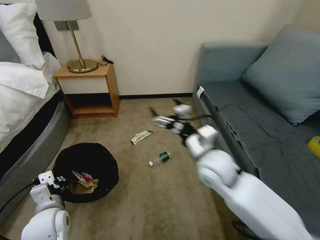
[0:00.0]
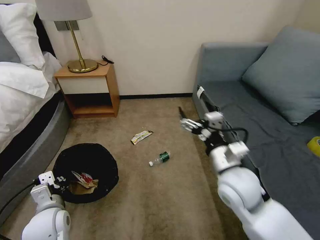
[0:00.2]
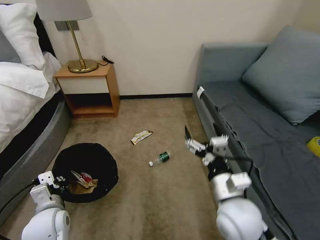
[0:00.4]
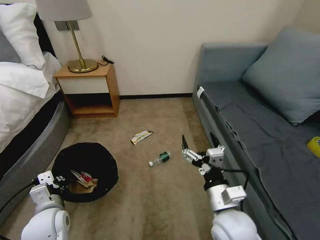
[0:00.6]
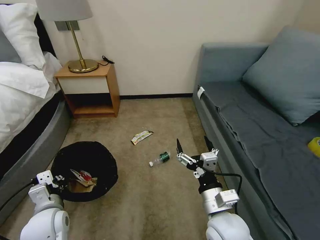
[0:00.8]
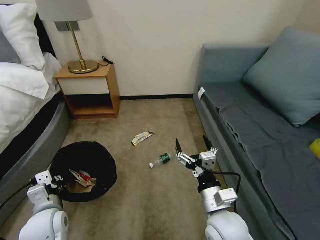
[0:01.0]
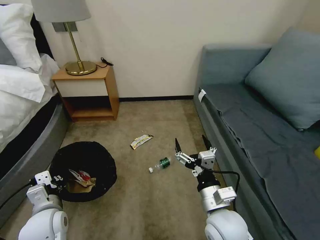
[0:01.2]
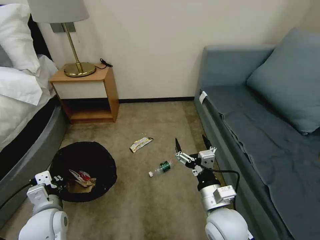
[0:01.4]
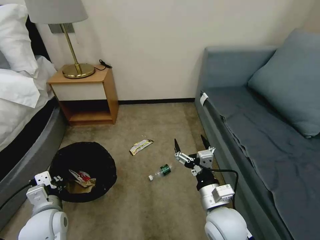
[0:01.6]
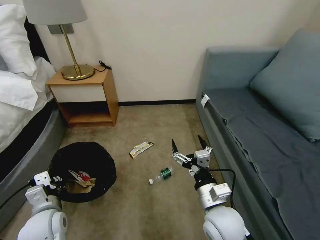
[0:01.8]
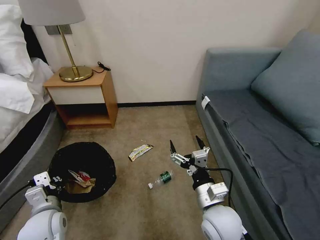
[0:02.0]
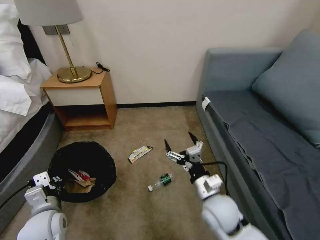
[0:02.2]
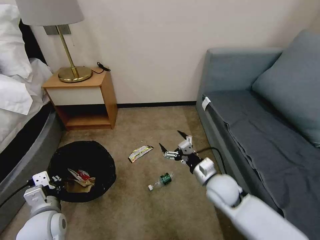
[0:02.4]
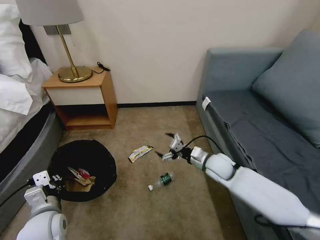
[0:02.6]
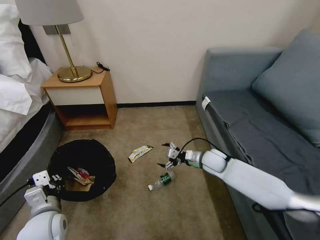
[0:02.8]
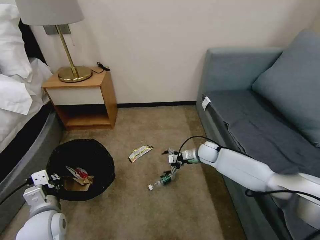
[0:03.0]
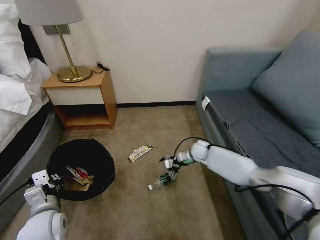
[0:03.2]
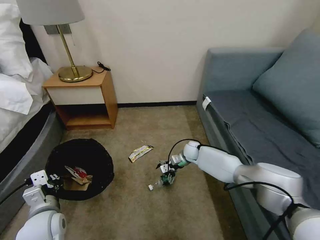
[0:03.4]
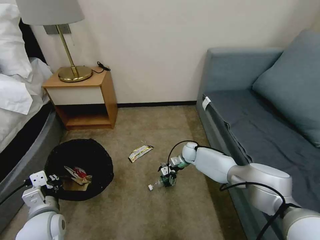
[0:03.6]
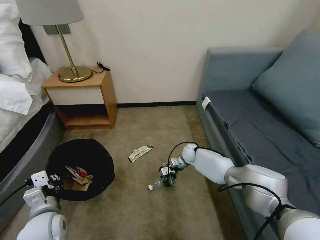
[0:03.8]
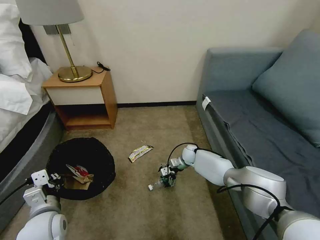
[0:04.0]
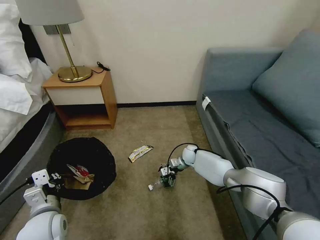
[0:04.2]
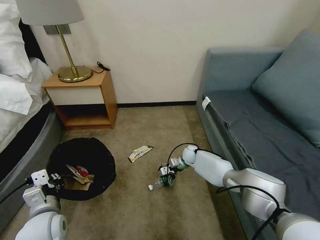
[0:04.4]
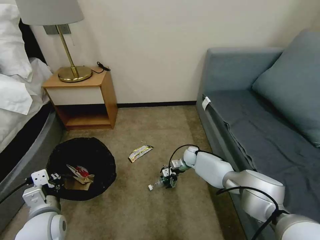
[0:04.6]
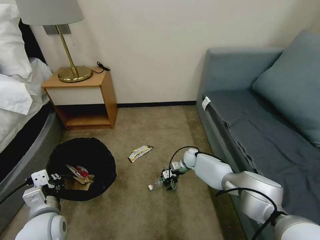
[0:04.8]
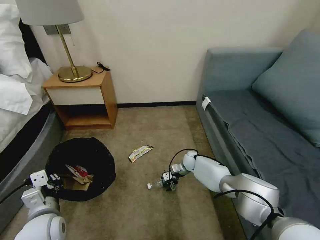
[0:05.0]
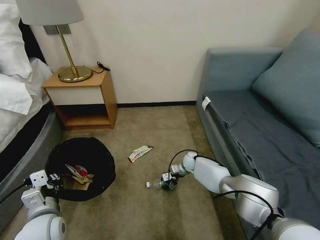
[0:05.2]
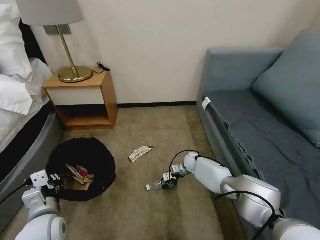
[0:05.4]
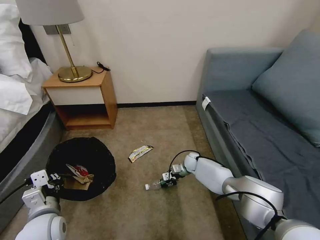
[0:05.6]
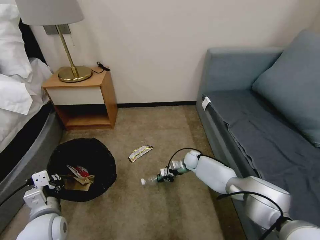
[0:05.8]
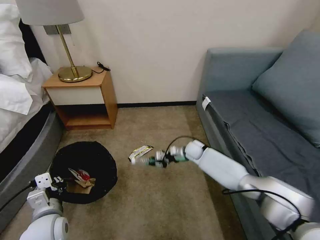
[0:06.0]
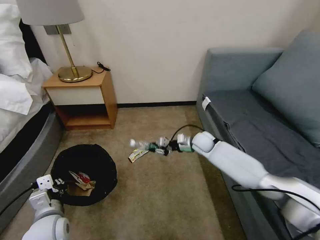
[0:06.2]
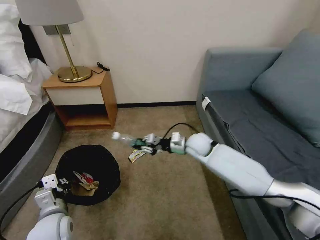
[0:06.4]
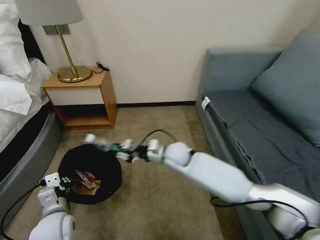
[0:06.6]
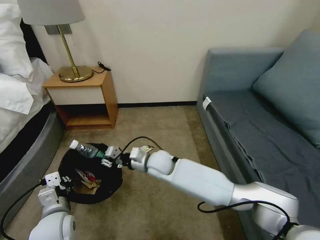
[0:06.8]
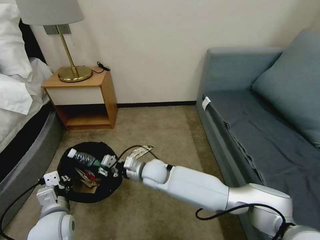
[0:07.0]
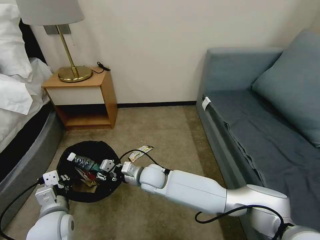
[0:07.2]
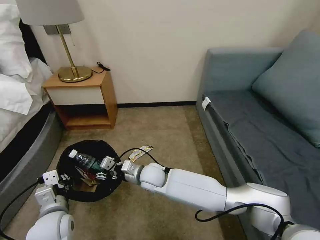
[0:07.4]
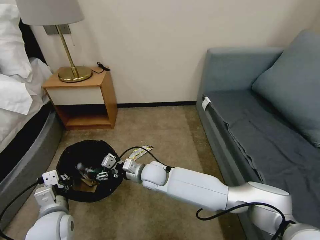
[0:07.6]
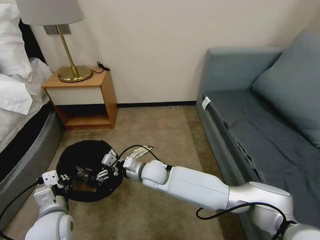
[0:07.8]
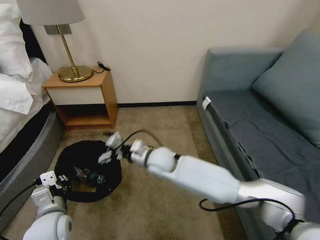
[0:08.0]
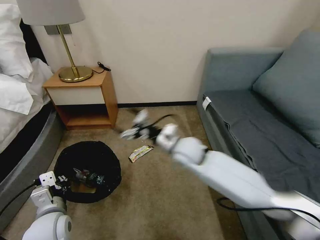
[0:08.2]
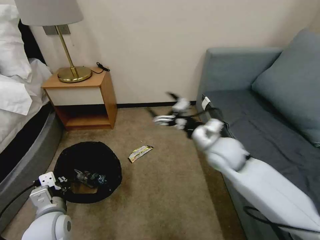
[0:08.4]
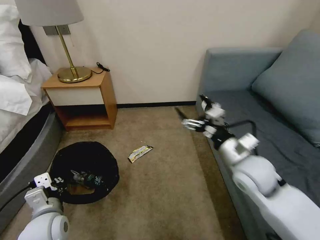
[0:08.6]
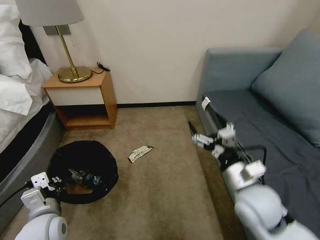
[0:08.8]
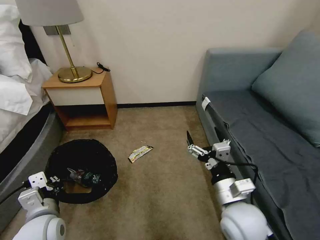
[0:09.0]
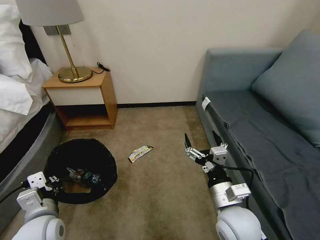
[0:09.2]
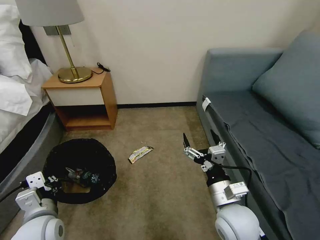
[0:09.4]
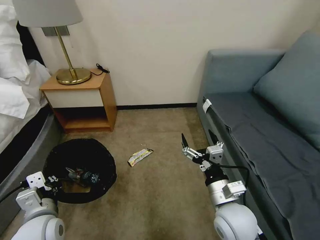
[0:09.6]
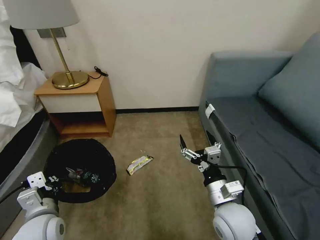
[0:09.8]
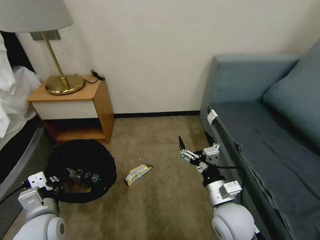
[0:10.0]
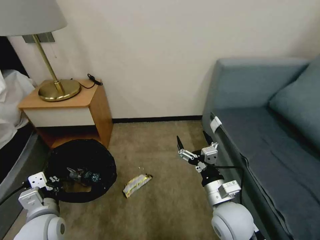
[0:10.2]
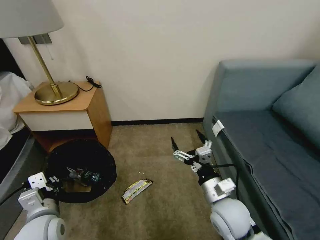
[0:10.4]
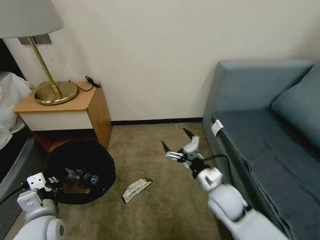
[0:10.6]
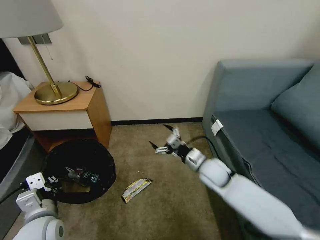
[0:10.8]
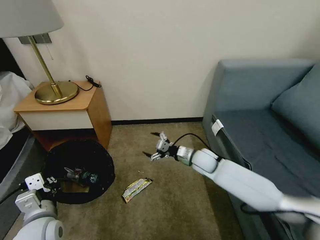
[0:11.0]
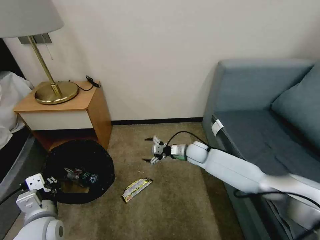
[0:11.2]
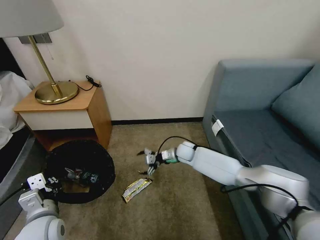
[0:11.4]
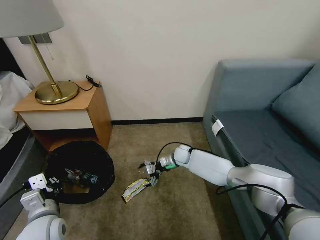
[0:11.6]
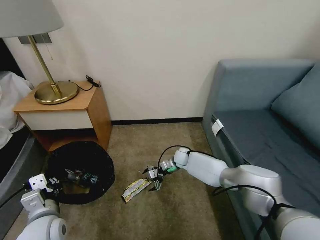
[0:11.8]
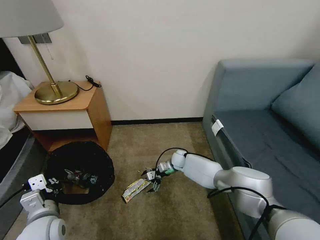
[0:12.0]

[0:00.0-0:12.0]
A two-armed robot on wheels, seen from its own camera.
Task of the whole recording: Pick up the trash bin, then pick up the garbage on the floor and place it into the trash bin.
0:00.0 to 0:01.6: The right gripper is displaced backward and downward by approximately 15 cm.
0:01.6 to 0:03.0: The right gripper heads forward, covering some 30 cm.
0:03.0 to 0:04.4: The right gripper travels downward and to the left by roughly 10 cm.
0:04.4 to 0:06.0: The right gripper goes some 5 cm upward, and closes its fingers.
0:06.0 to 0:07.6: The right gripper travels to the left and backward by about 25 cm, and opens.
0:07.6 to 0:09.0: The right gripper goes roughly 30 cm to the right, backward and upward.
0:10.4 to 0:12.0: The right gripper is displaced forward and downward by some 35 cm.

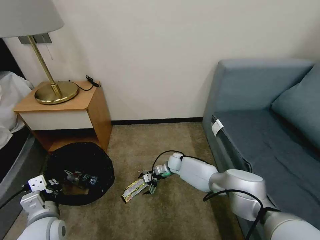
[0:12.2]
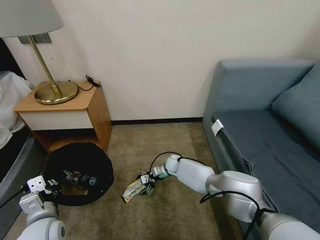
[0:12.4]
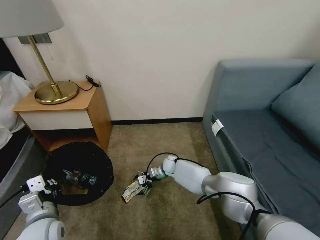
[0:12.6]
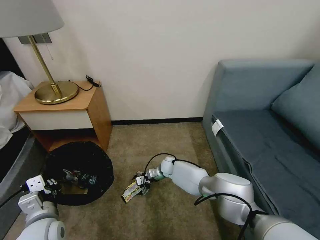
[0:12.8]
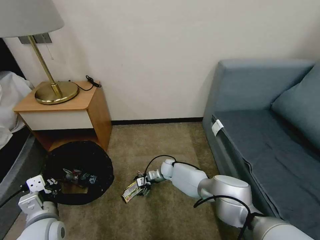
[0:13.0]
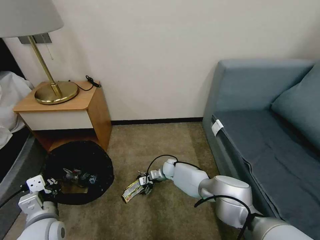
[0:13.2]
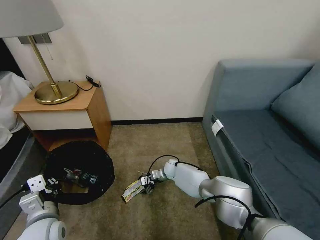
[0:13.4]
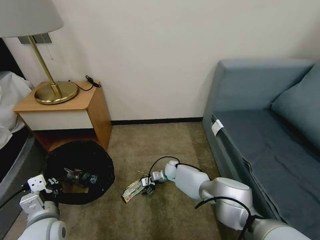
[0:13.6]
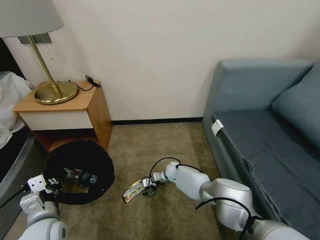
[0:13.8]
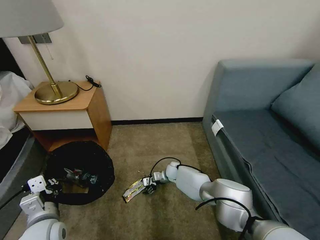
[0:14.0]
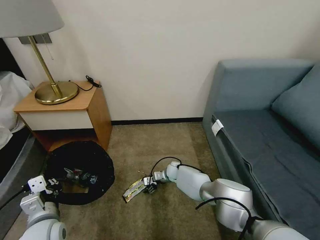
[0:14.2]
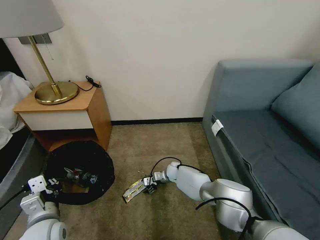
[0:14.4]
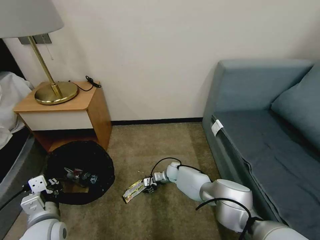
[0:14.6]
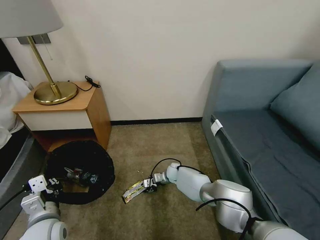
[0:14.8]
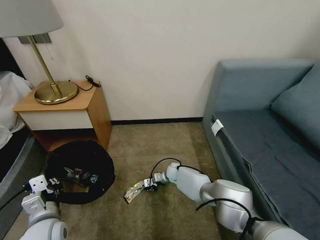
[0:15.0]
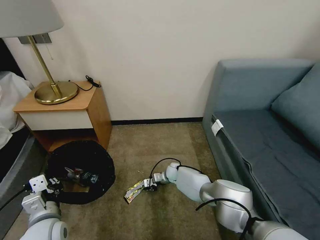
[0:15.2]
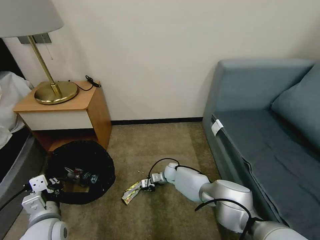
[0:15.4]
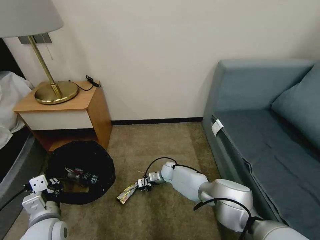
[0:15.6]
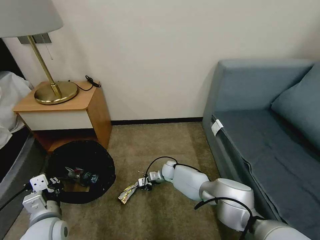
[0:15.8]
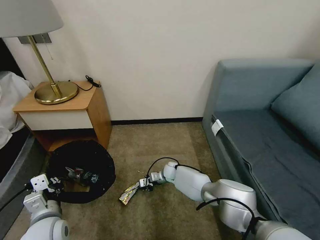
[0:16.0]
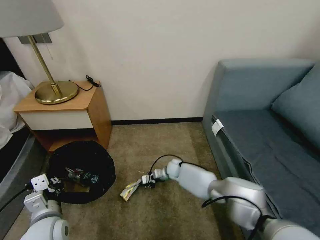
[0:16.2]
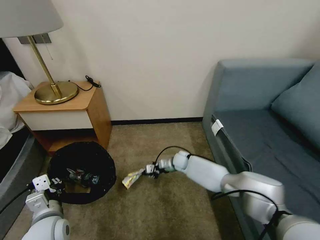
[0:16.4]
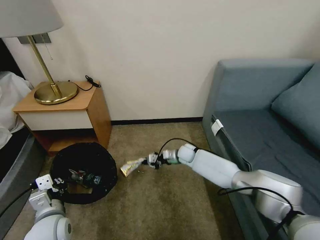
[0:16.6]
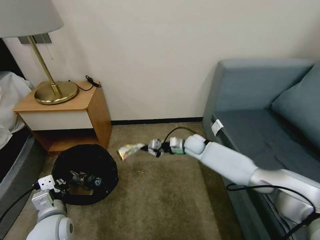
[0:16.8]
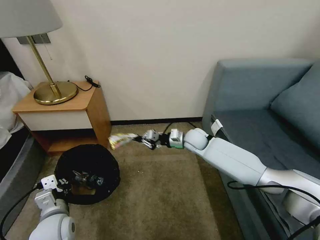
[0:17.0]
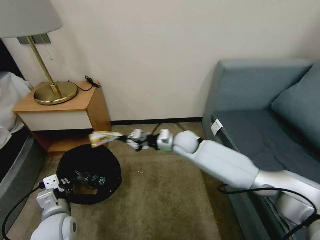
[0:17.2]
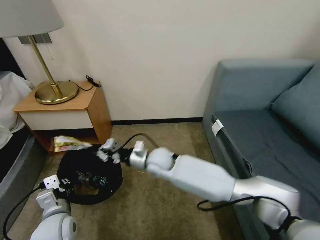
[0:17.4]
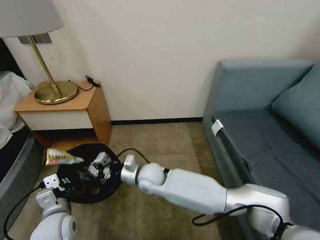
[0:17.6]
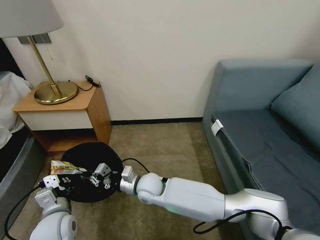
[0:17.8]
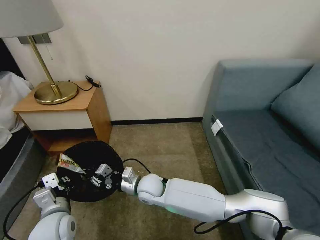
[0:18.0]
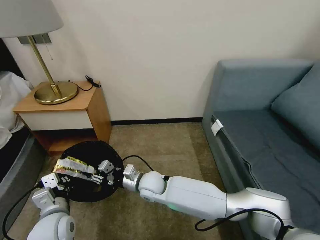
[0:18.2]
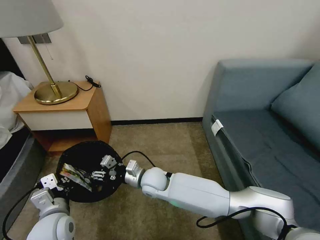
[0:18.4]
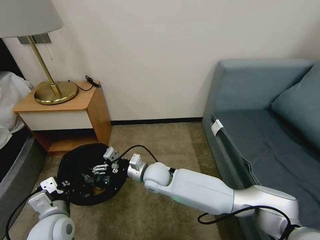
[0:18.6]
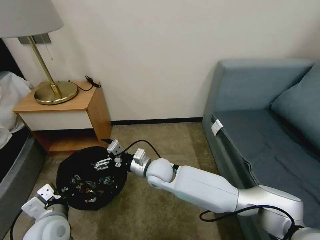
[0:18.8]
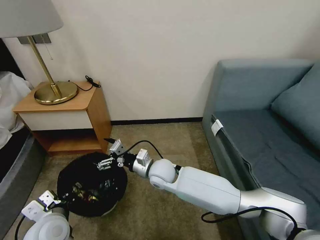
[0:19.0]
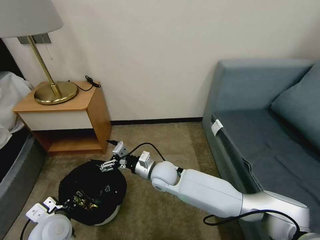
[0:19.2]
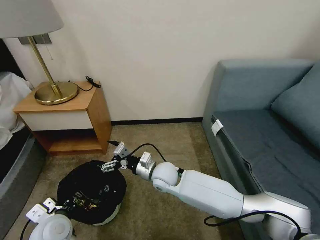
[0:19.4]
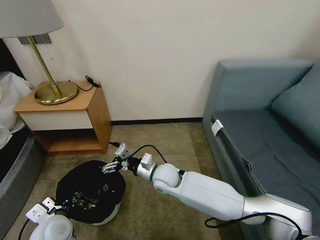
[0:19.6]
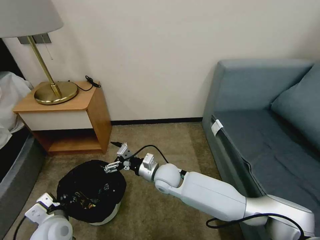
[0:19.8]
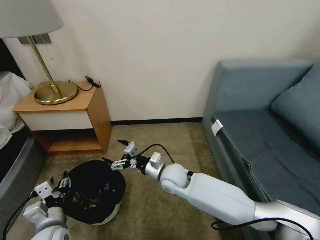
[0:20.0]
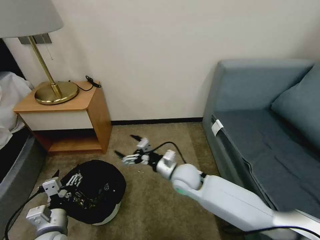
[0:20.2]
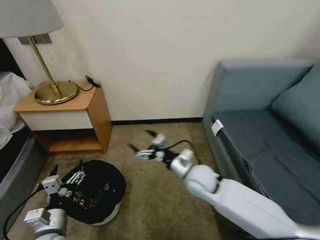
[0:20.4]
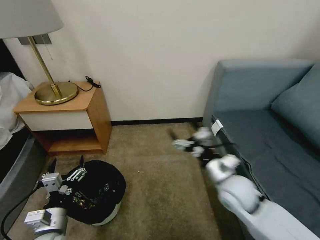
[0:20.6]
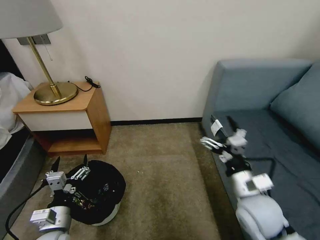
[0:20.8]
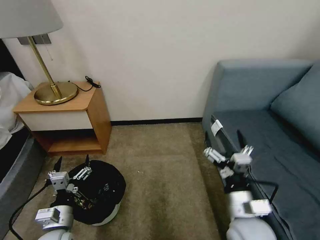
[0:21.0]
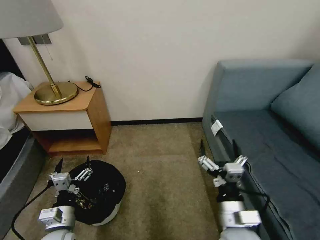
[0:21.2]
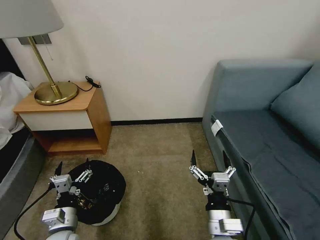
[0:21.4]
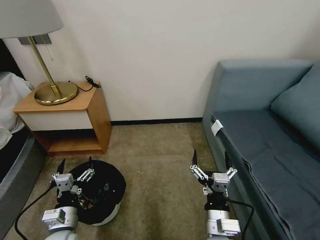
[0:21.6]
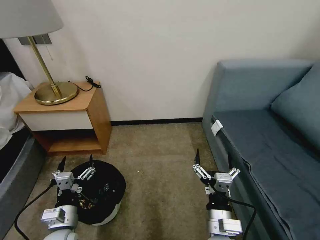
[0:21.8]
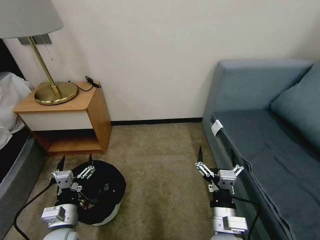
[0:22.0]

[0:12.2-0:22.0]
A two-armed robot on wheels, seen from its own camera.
Task of the whole recording: Pick up the trash bin, then pick up the garbage on the floor and place it into the trash bin.
0:12.2 to 0:13.6: The grippers move only a little.
0:13.6 to 0:15.0: The right gripper closes up.
0:15.0 to 0:16.4: The right gripper travels upward by some 5 cm.
0:16.4 to 0:17.8: The right gripper is displaced backward, to the left and upward by some 25 cm.
0:17.8 to 0:19.2: The right gripper heads to the right, covering some 5 cm, and opens up.
0:19.2 to 0:20.6: The left gripper opens up, while the right gripper heads to the right and backward, covering approximately 20 cm.
0:20.6 to 0:22.0: The right gripper heads backward, covering about 15 cm.
